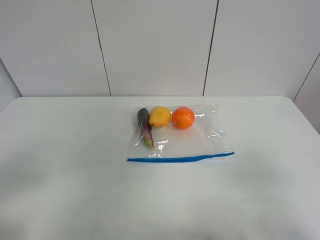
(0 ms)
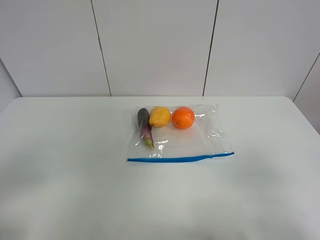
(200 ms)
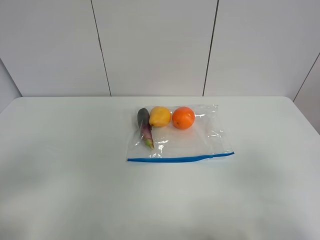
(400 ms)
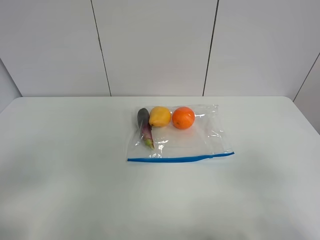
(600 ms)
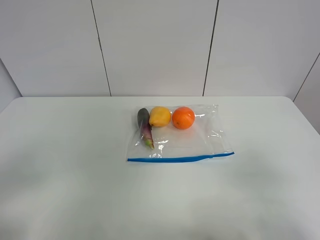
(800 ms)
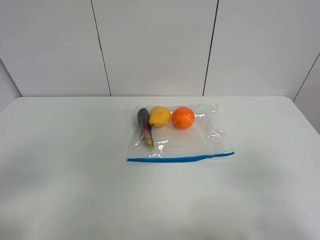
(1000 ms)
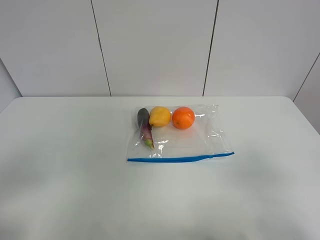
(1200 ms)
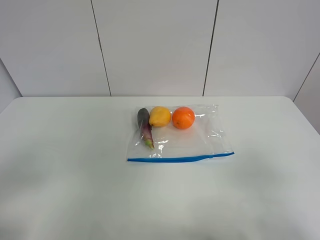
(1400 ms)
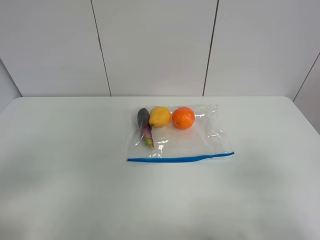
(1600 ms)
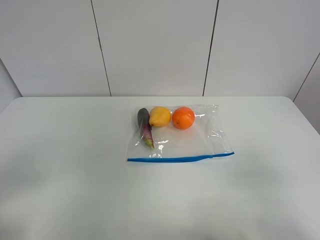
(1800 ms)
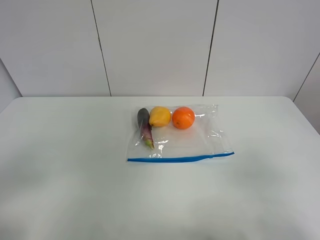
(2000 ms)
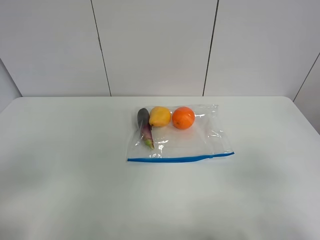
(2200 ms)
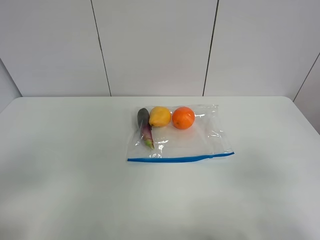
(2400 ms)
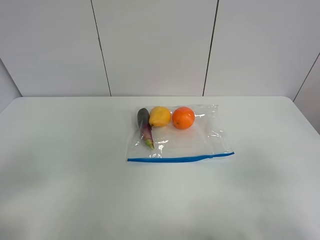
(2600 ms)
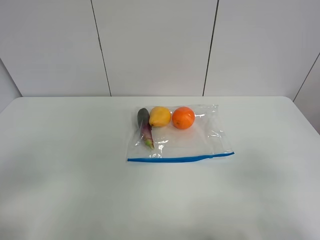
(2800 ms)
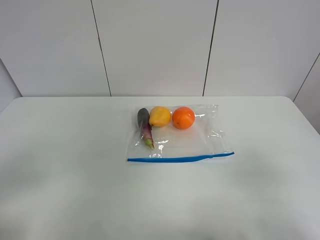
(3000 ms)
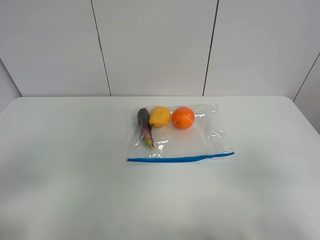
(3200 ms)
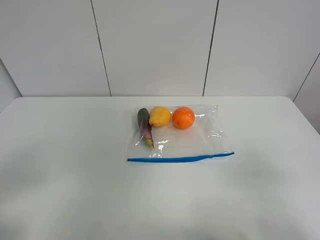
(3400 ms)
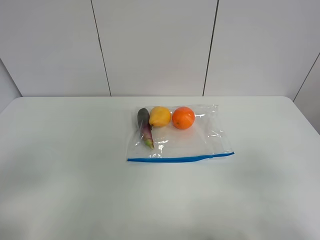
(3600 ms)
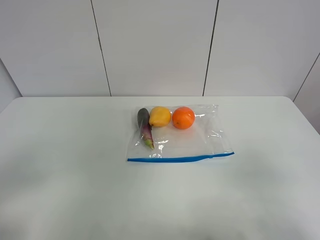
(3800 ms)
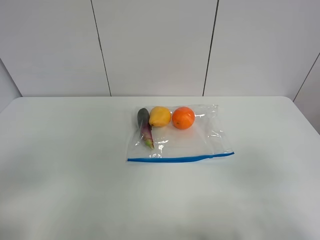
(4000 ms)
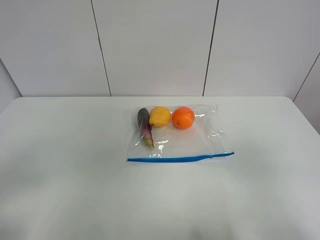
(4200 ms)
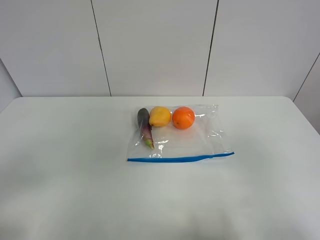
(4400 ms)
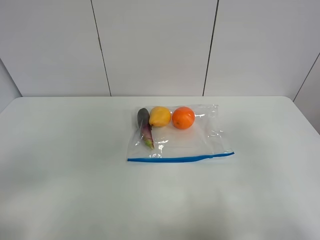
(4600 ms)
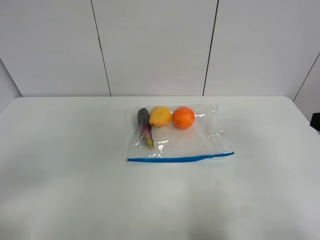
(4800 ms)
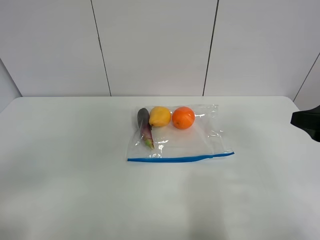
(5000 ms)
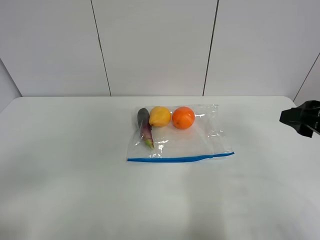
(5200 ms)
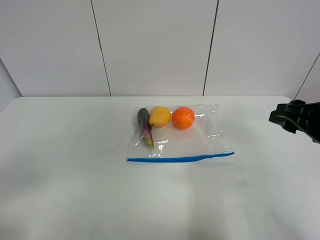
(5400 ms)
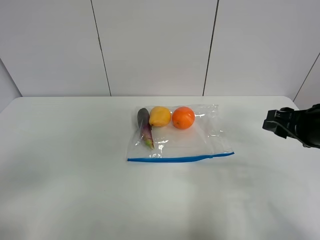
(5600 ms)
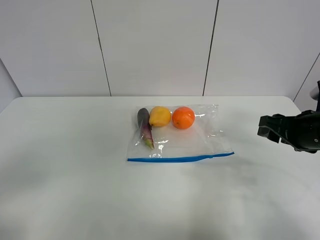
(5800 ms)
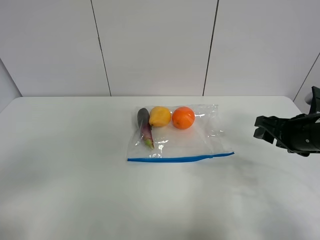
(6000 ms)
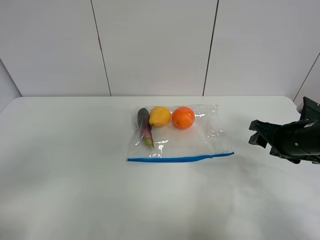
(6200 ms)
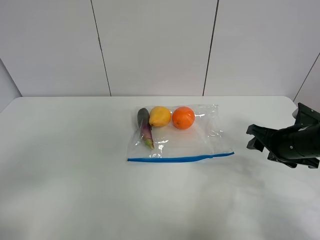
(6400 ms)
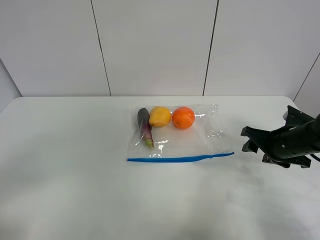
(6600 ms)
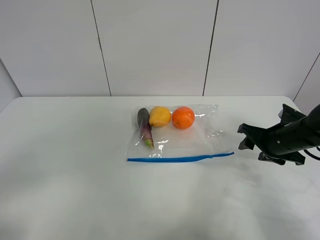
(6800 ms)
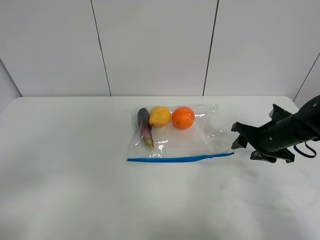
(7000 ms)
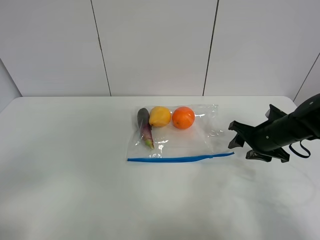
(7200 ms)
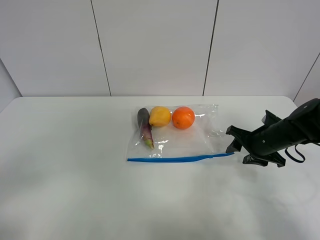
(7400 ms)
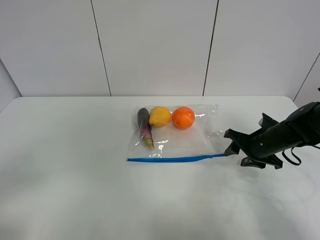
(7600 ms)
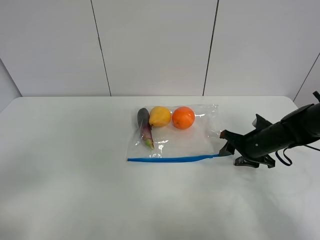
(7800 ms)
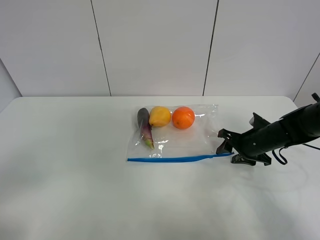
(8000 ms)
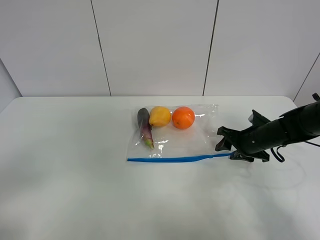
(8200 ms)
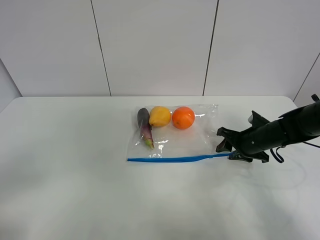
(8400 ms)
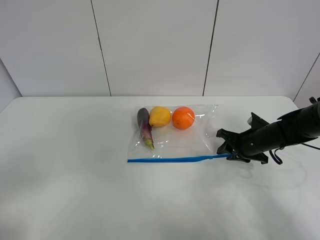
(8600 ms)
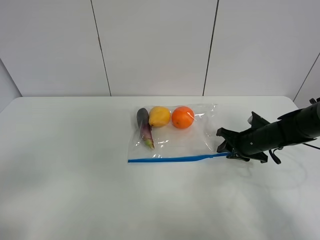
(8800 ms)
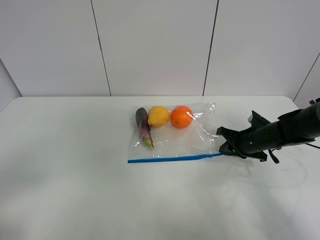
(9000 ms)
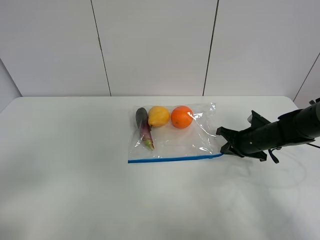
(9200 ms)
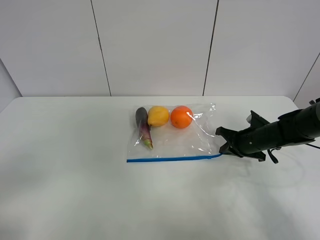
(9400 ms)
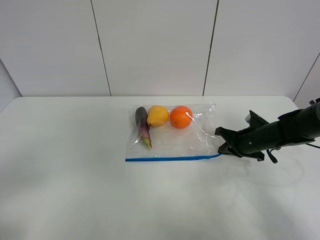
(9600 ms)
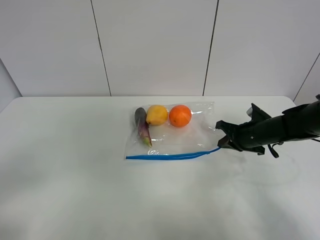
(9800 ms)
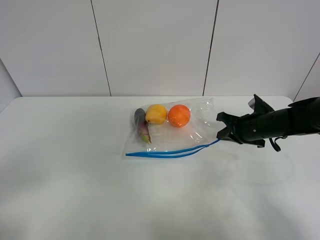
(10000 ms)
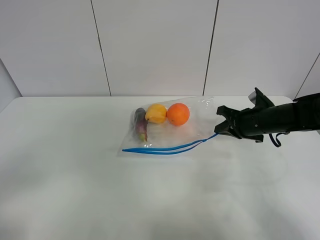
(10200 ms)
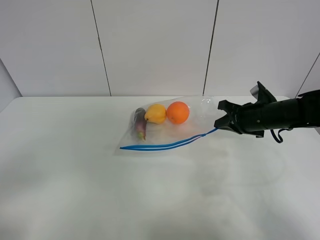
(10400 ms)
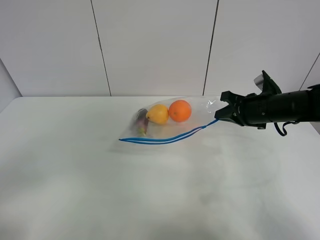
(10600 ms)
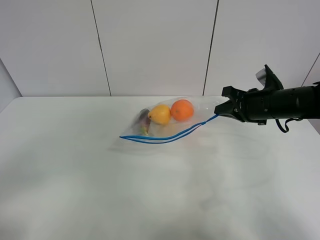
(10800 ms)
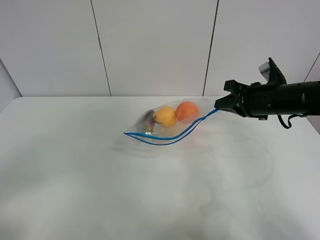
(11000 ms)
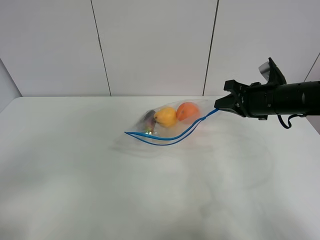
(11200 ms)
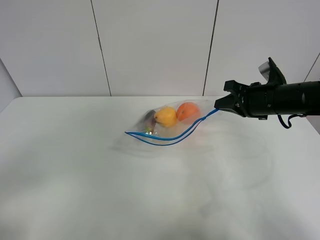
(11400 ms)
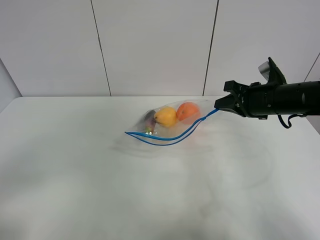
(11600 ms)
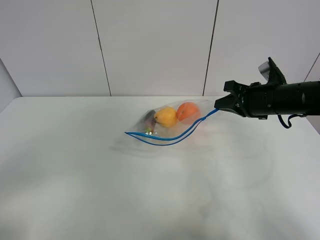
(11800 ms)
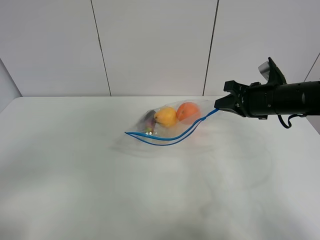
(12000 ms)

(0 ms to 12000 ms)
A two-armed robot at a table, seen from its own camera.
Step, 0 ms - 9200 ms: Grasp the fruit bag with right gripper.
Step, 9400 ms - 11600 ms: Lift the fruit bag with your right gripper.
0 ms - 3000 ms: Neither gripper changes place.
4400 ms - 6000 ms: The right gripper shifts roughly 25 cm forward and downward.
6000 ms - 7600 ms: The right gripper goes about 10 cm downward and forward.
7600 ms - 9000 ms: The right gripper closes.
9000 ms - 10400 ms: The right gripper heads upward, covering about 10 cm.
10400 ms - 12000 ms: The right gripper is displaced upward by about 5 cm.

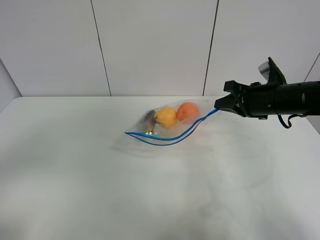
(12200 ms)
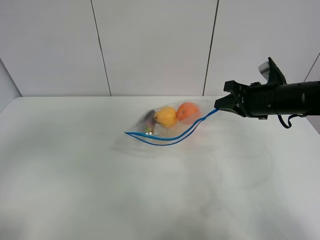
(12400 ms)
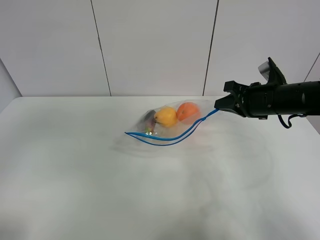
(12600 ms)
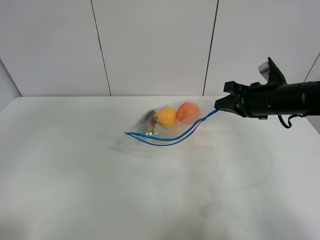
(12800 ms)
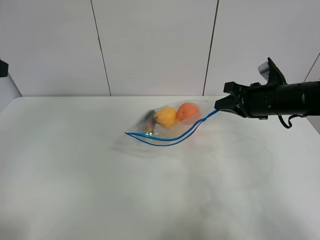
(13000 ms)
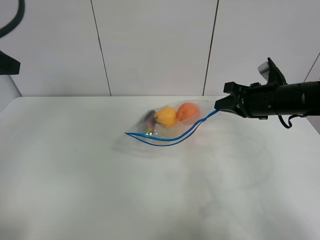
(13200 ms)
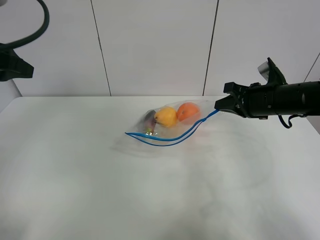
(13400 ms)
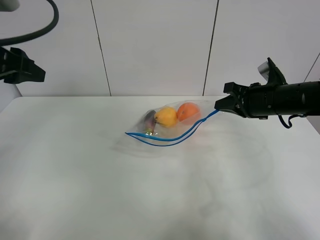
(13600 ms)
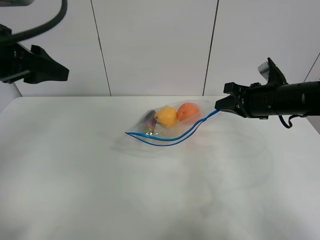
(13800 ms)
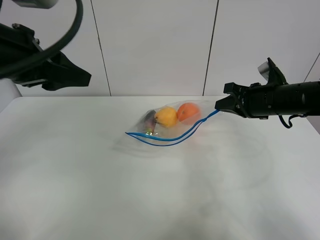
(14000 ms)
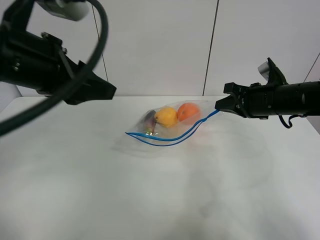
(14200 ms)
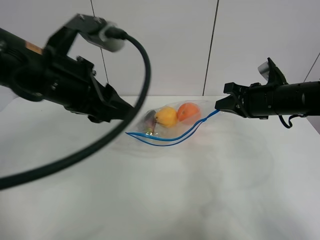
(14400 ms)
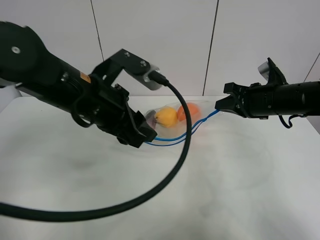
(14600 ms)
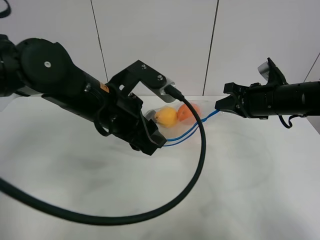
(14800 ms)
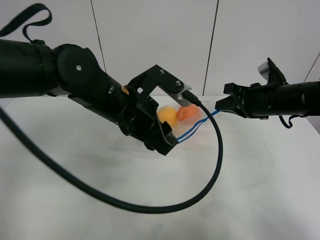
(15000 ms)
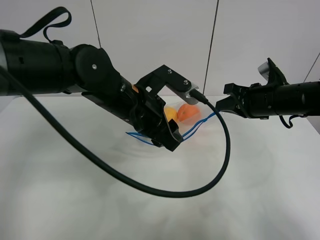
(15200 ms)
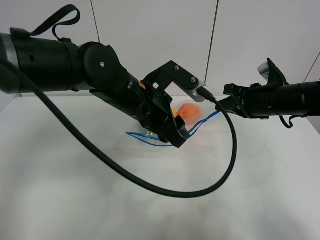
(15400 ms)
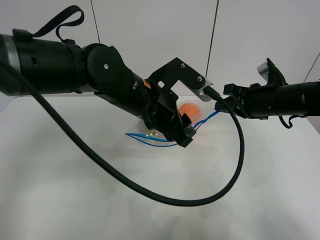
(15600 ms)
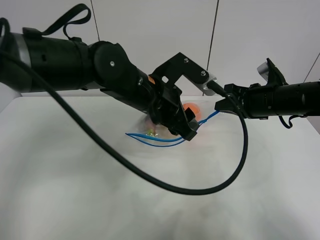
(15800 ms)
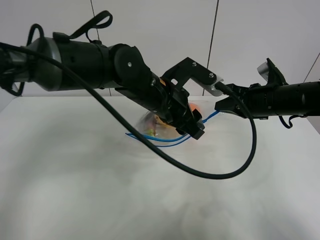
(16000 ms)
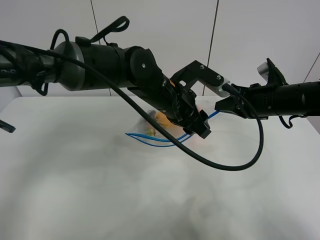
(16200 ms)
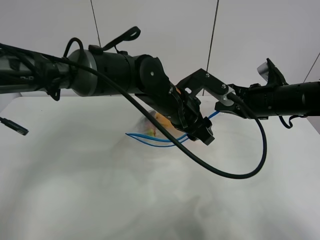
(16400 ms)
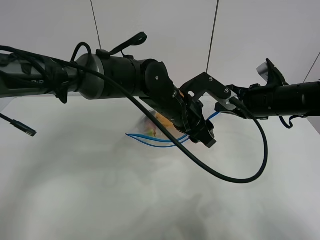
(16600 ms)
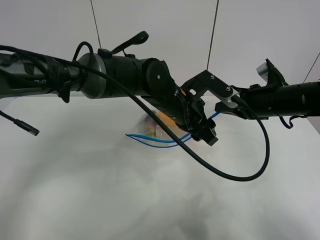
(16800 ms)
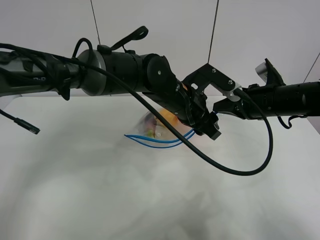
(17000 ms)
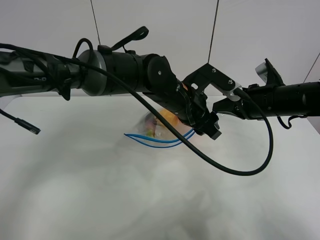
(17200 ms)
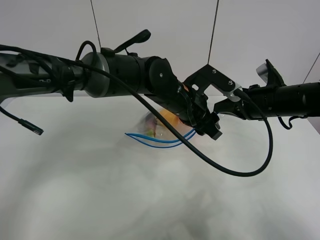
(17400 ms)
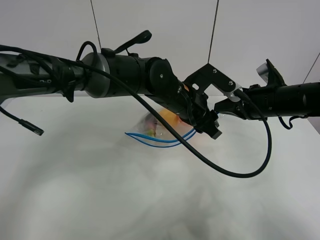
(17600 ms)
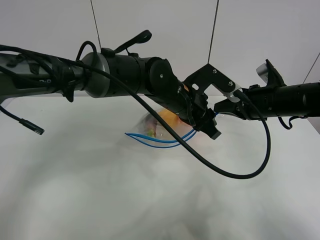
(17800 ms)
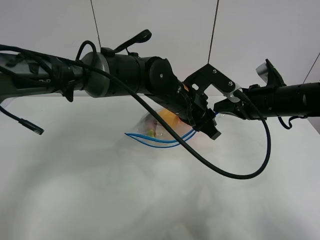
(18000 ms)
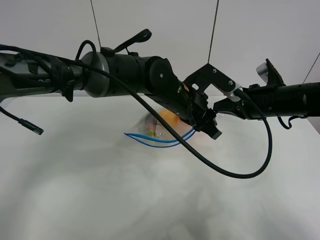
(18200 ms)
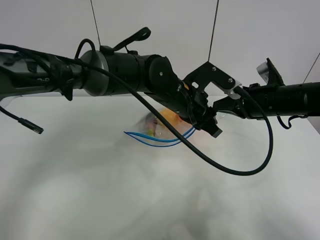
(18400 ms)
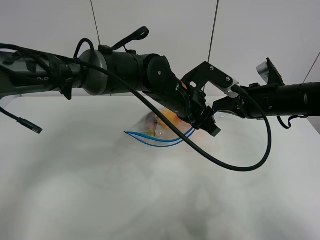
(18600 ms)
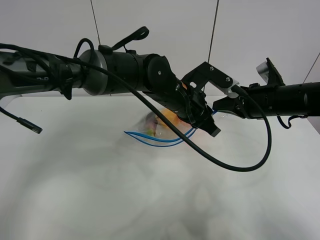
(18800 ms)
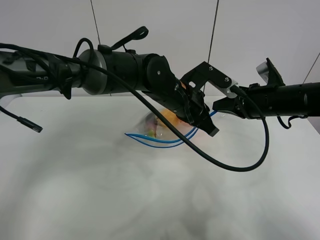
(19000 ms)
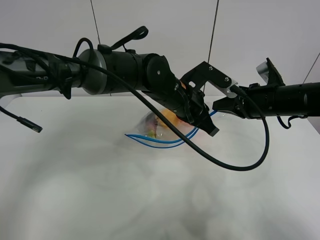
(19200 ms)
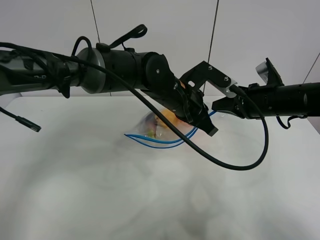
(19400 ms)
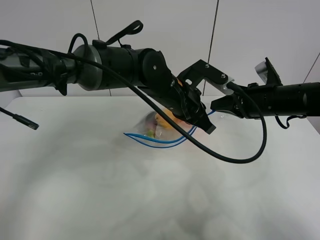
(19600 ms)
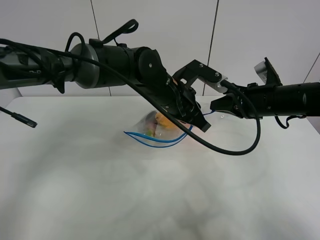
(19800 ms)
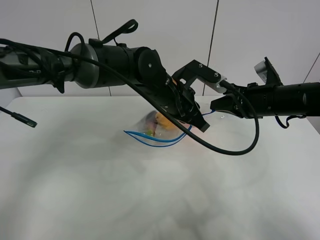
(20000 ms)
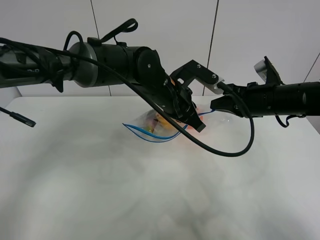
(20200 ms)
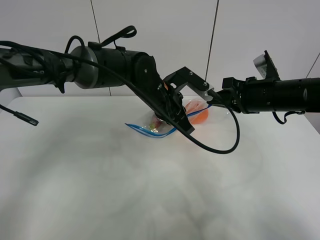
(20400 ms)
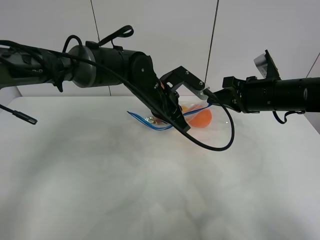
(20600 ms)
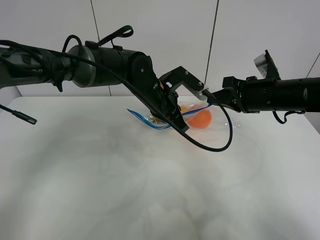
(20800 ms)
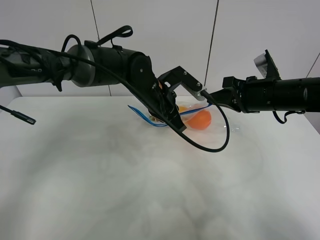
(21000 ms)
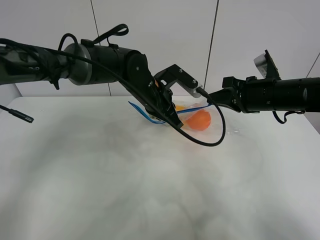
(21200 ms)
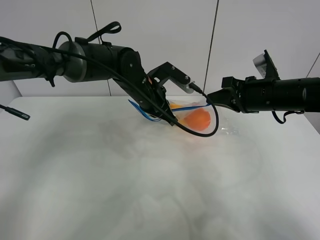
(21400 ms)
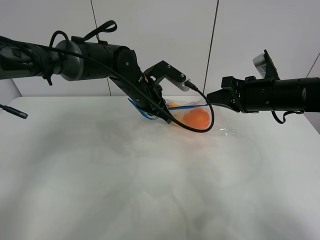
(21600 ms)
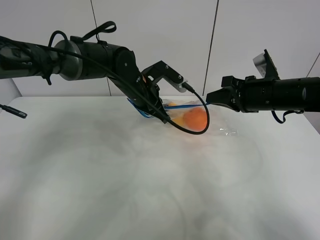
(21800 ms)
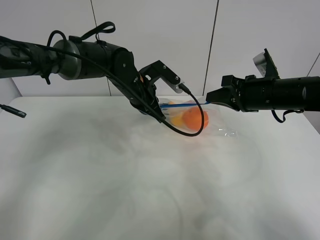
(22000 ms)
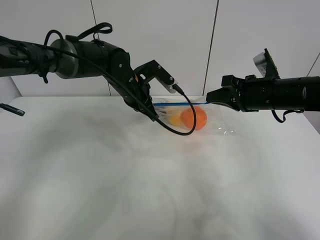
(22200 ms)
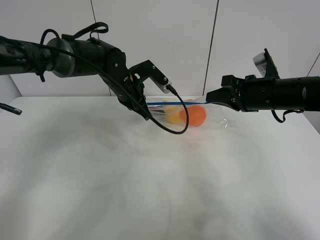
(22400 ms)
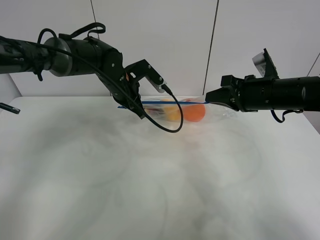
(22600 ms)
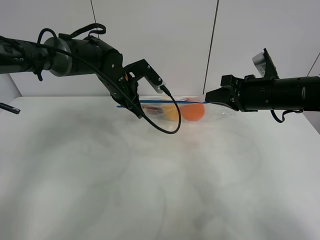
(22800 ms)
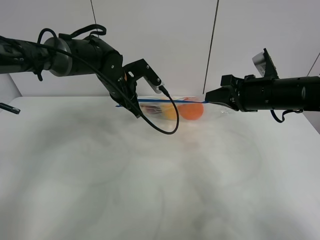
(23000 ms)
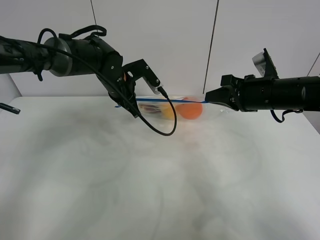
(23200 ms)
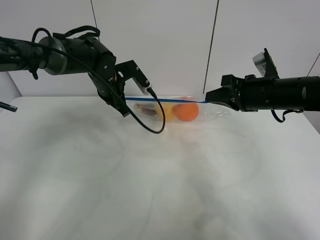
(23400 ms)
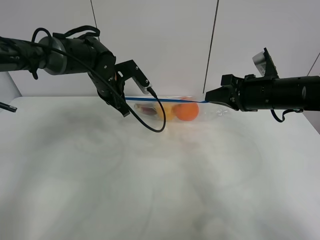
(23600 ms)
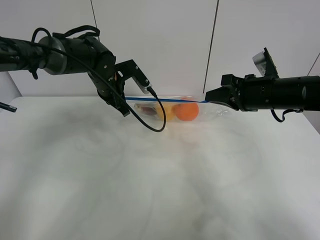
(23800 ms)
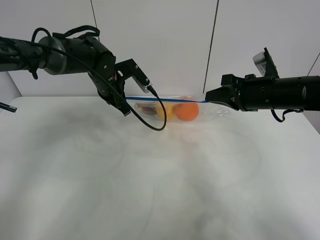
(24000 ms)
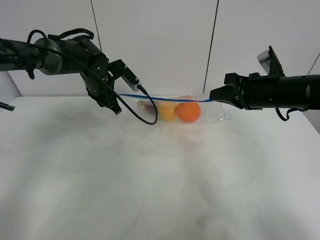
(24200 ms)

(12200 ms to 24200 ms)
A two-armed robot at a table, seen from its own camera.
12200 ms - 13800 ms: The left gripper moves forward, approximately 20 cm.
13800 ms - 15200 ms: The left gripper travels to the right and downward by roughly 20 cm.
15200 ms - 16600 ms: The left gripper heads to the right, covering roughly 5 cm.
16600 ms - 18200 ms: The left gripper closes its fingers.
18200 ms - 19800 ms: The left gripper closes up.
19800 ms - 21200 ms: The left gripper ends up approximately 5 cm from where it was.
21200 ms - 22600 ms: The left gripper goes about 5 cm to the left.
22600 ms - 24200 ms: The left gripper shifts by about 5 cm, and opens.
